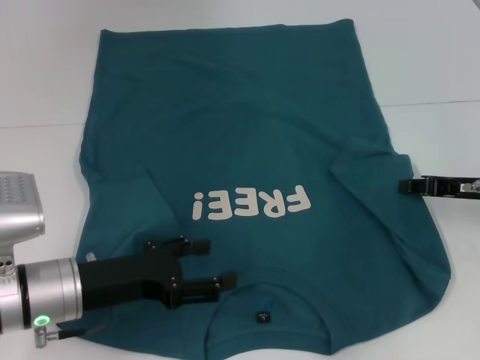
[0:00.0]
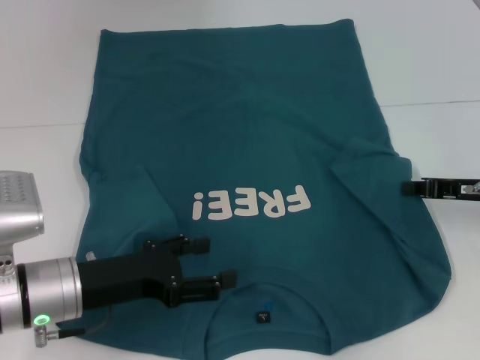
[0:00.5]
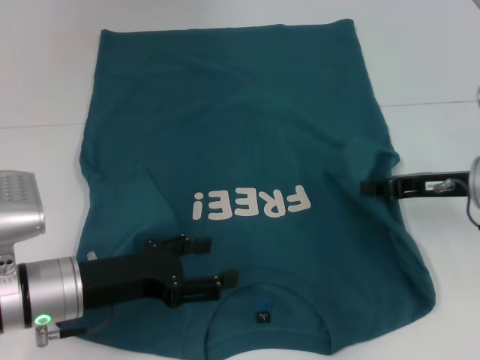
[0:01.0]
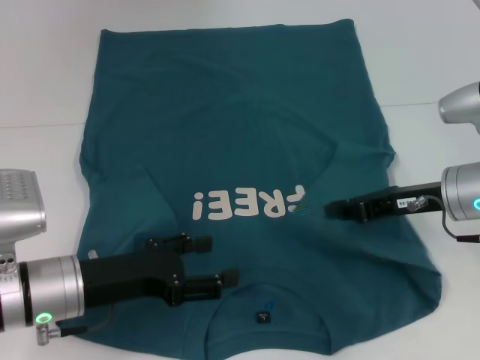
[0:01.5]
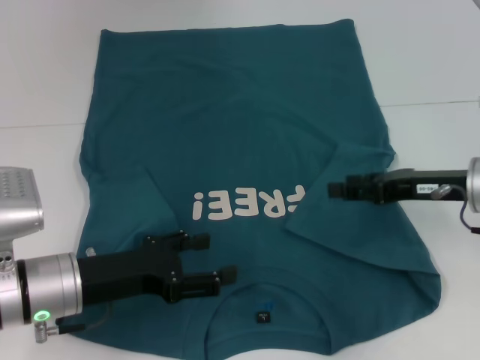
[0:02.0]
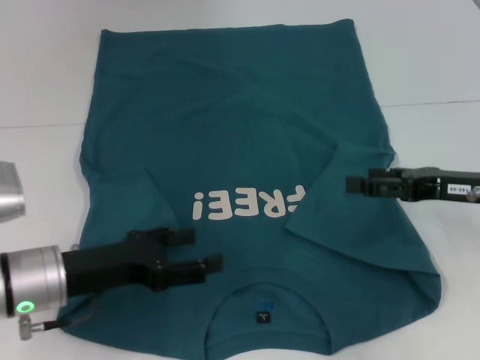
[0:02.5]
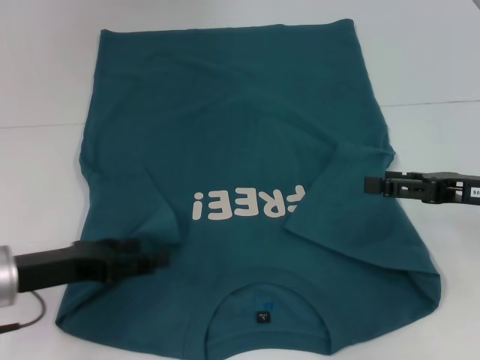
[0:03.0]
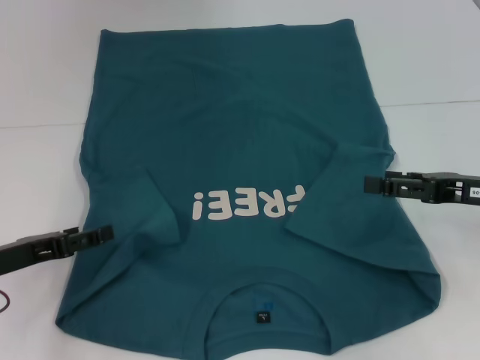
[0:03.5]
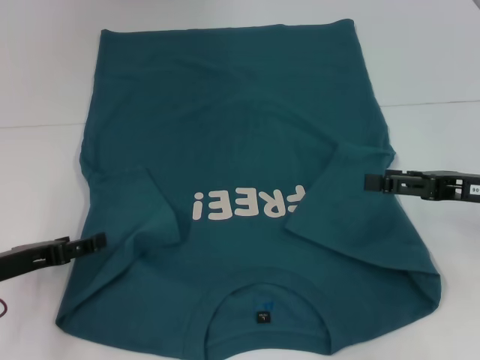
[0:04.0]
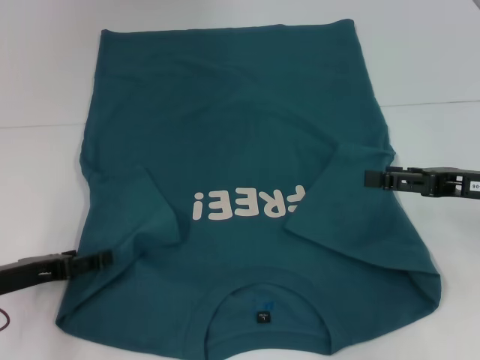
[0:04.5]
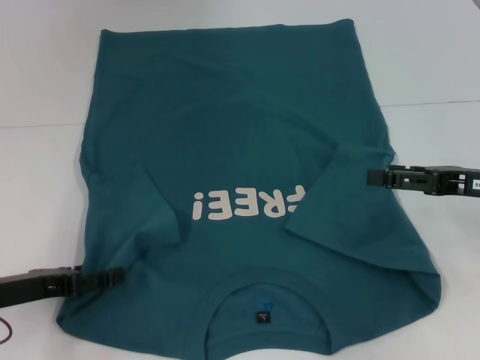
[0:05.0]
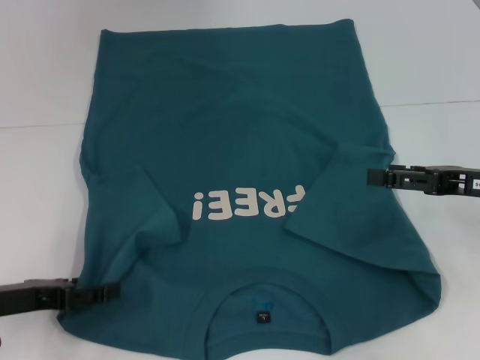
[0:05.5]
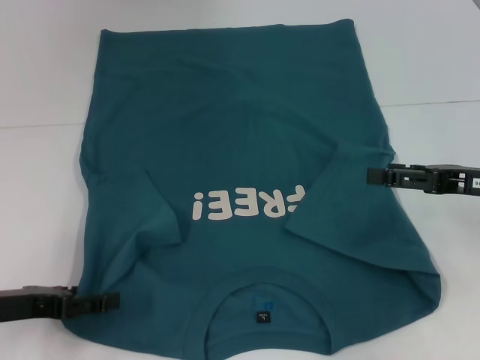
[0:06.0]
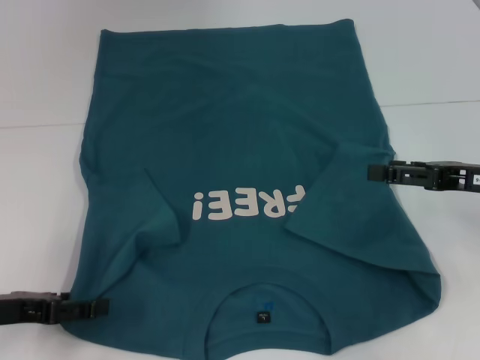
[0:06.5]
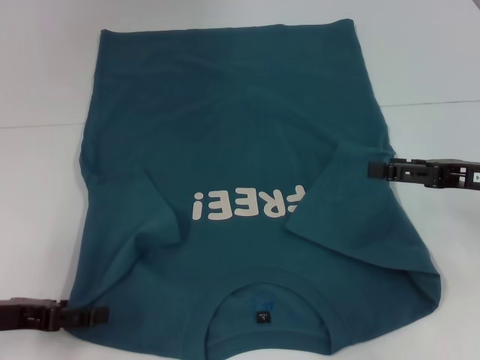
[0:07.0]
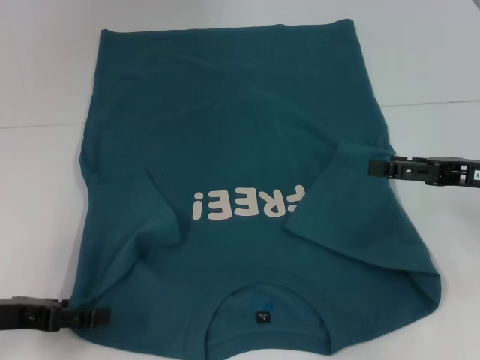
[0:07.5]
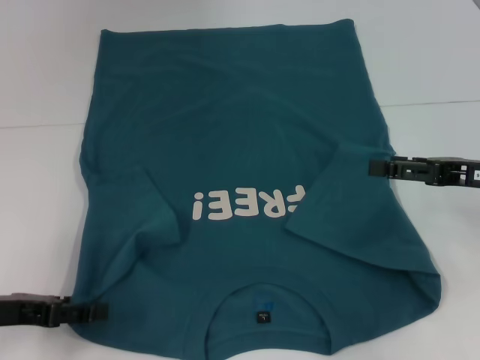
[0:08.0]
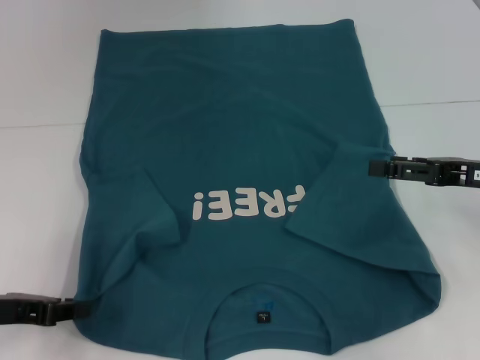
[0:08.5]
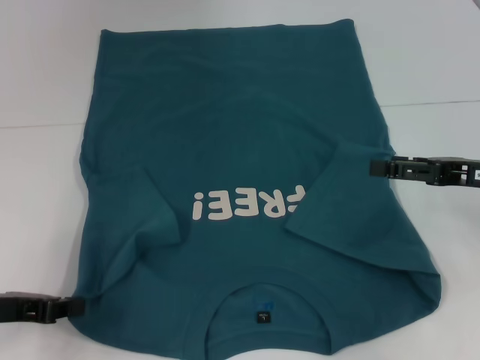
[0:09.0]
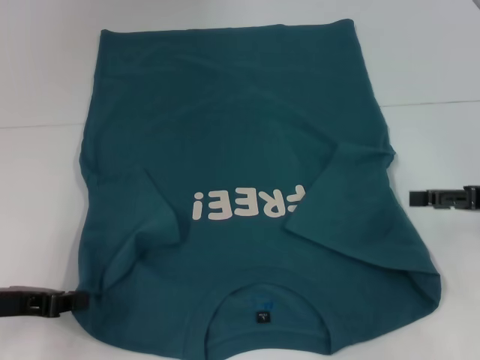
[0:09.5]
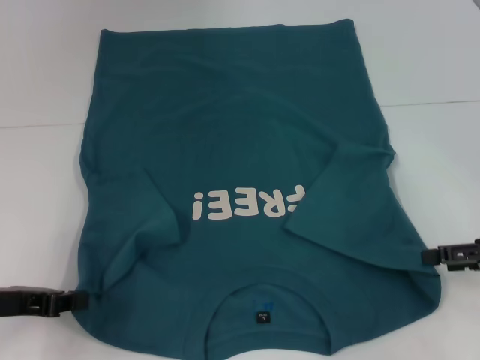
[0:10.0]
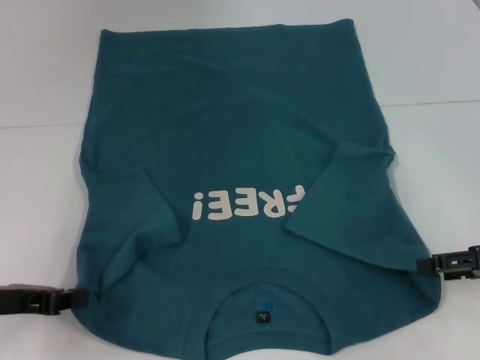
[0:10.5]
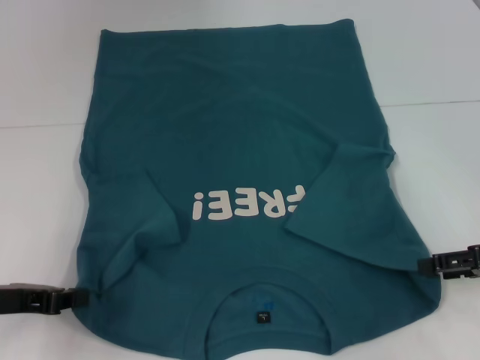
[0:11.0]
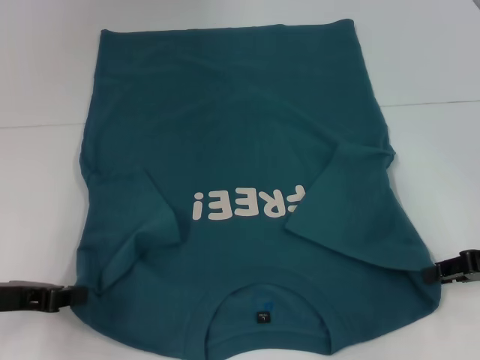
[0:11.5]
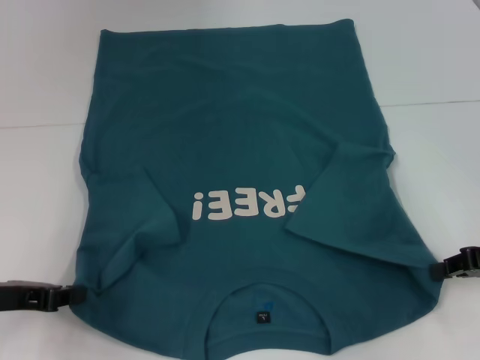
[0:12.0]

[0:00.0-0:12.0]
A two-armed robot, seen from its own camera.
Step, 0:02.0 to 0:09.0: Grab the bottom left corner with your left hand.
Step, 0:09.5 to 0:11.5: Grab the bottom right corner with your right hand.
0:00.0 to 0:02.0: The right gripper changes place by approximately 5 cm, and closes, then reopens.
0:02.0 to 0:04.0: The left gripper is displaced to the left by some 10 cm. Meanwhile the right gripper shifts by approximately 5 cm, and opens up.
0:04.0 to 0:06.0: The grippers make only small movements.
0:06.0 to 0:08.0: Both grippers stay put.
0:08.0 to 0:10.0: The left gripper closes; the right gripper moves approximately 5 cm.
0:10.0 to 0:12.0: The right gripper closes its fingers.

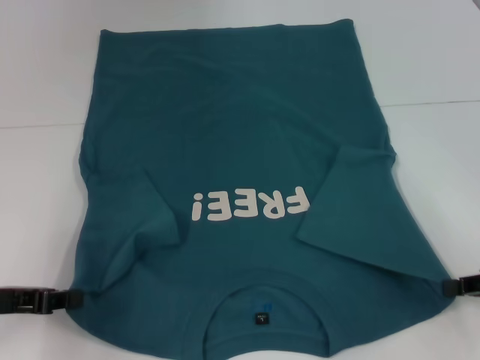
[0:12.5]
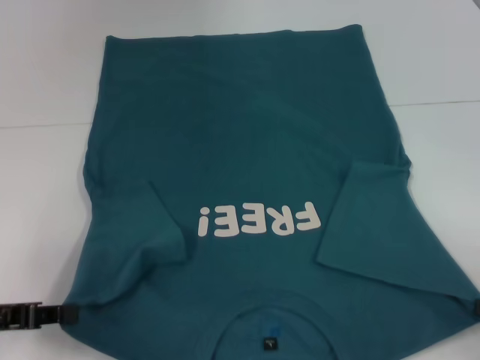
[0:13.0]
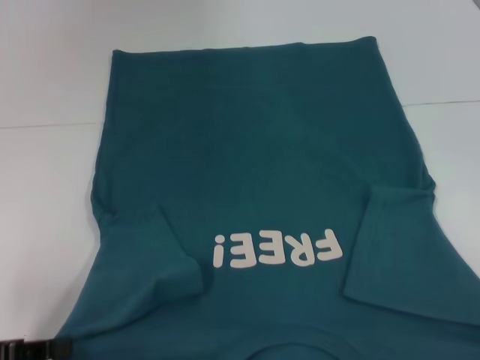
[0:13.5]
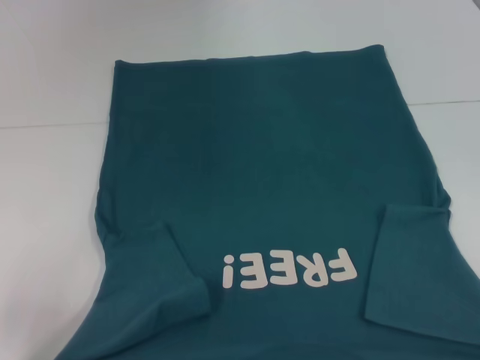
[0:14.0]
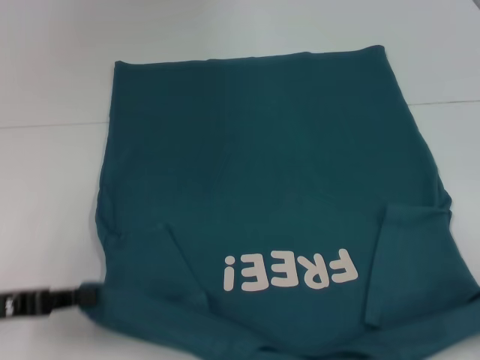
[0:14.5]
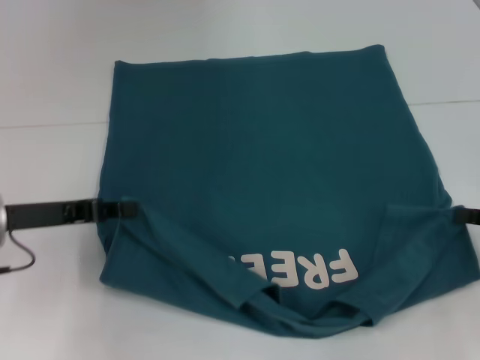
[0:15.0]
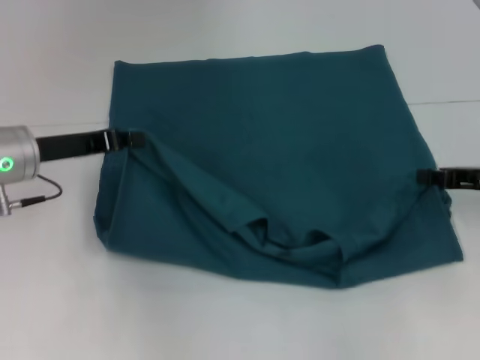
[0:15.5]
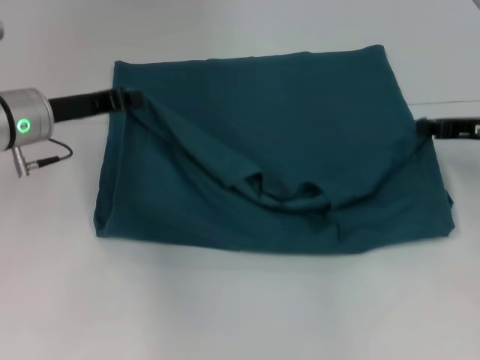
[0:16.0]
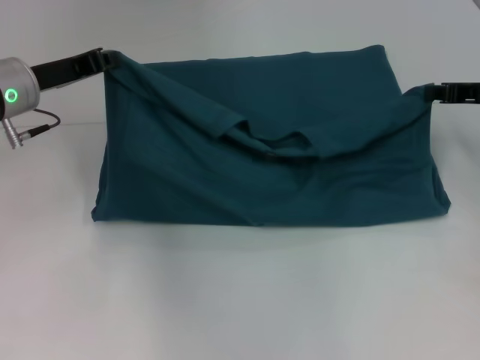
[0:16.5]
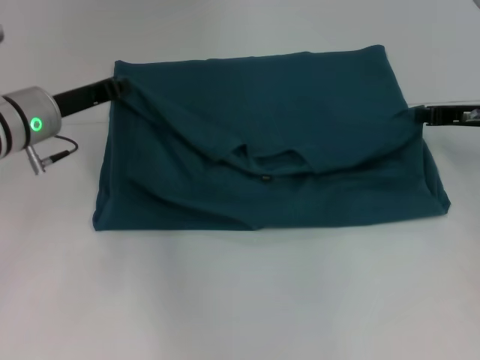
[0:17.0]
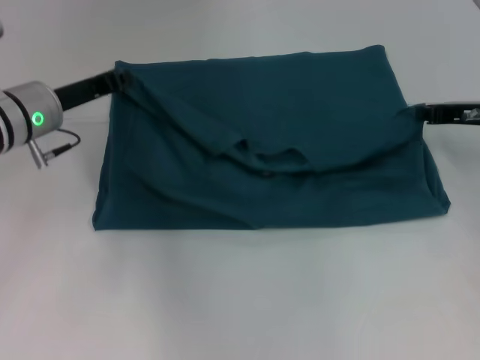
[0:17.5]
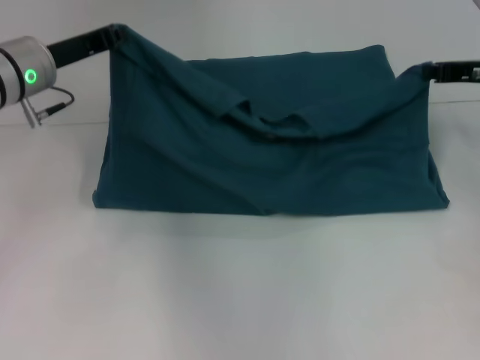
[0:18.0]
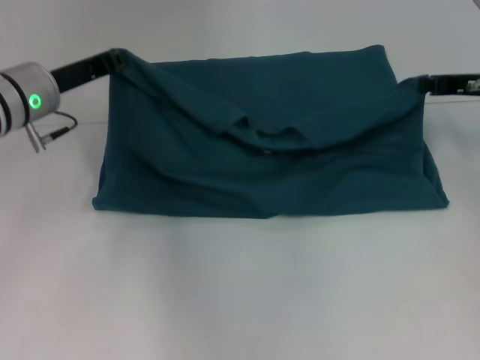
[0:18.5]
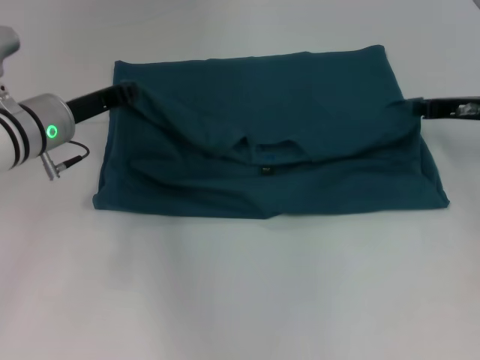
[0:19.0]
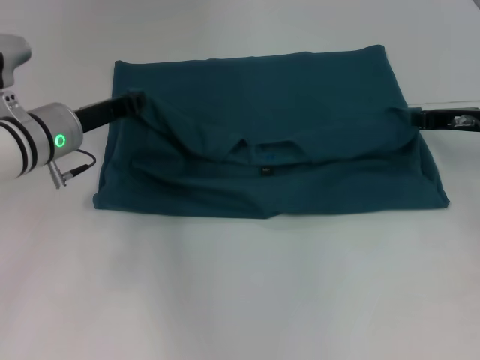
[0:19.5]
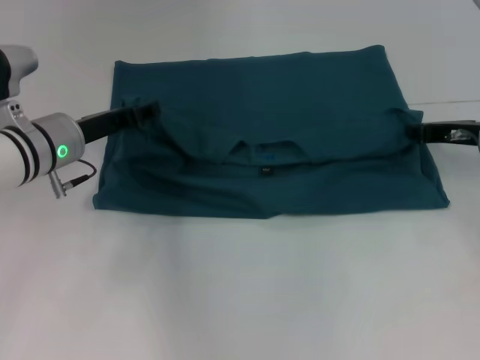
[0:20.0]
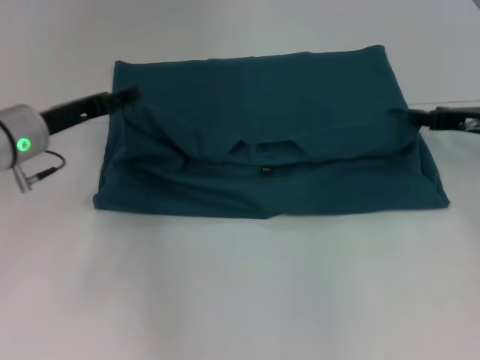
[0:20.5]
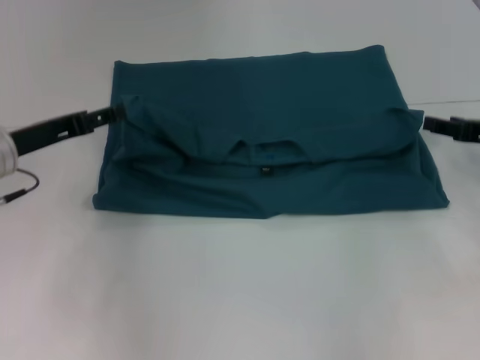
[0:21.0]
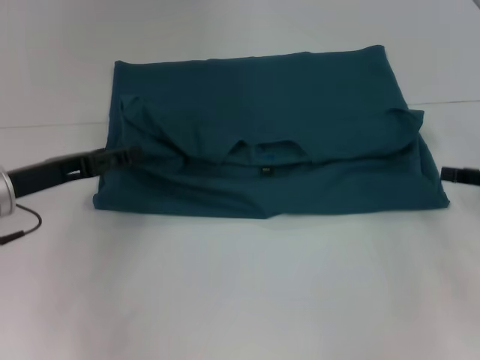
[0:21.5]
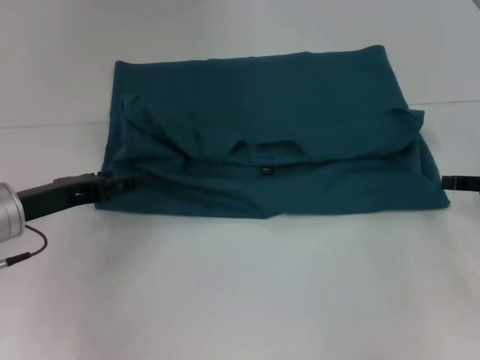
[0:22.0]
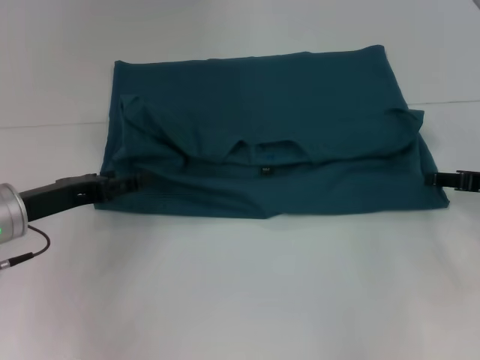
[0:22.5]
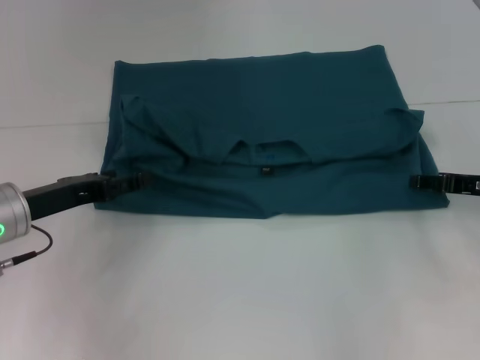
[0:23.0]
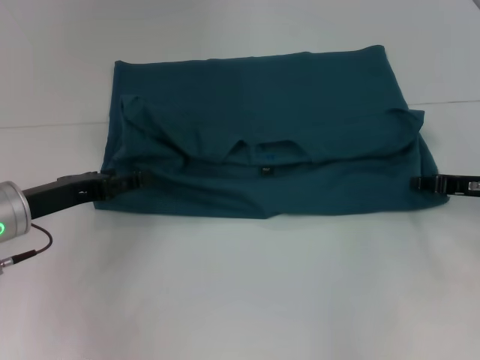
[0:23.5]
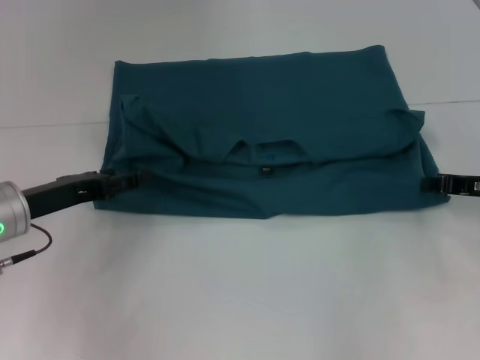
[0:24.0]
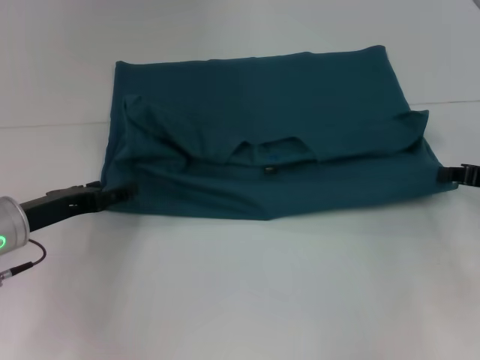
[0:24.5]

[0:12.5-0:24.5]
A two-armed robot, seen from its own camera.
Step, 0:12.5 to 0:20.0: Fold the clothes to the left.
Step, 0:12.5 to 0:20.0: Fold the clothes to the right.
0:12.5 to 0:14.5: The right gripper heads backward and to the right, covering approximately 10 cm.
0:14.5 to 0:16.5: The left gripper goes about 20 cm forward and to the right, while the right gripper is displaced forward by some 25 cm.
0:16.5 to 0:18.5: There are only small adjustments of the grippers.
0:18.5 to 0:20.5: The right gripper opens up. Meanwhile the left gripper opens its fingers.
0:20.5 to 0:22.5: The two grippers go about 5 cm backward.
0:22.5 to 0:24.5: The right gripper closes its fingers.

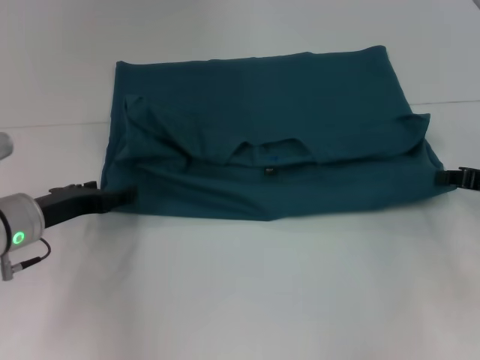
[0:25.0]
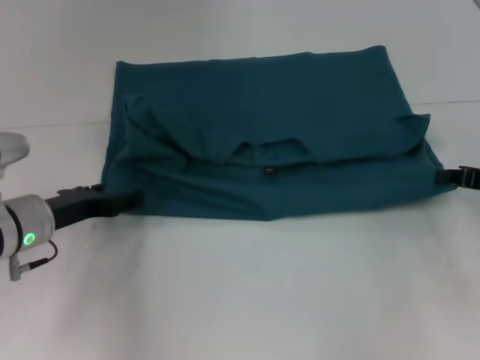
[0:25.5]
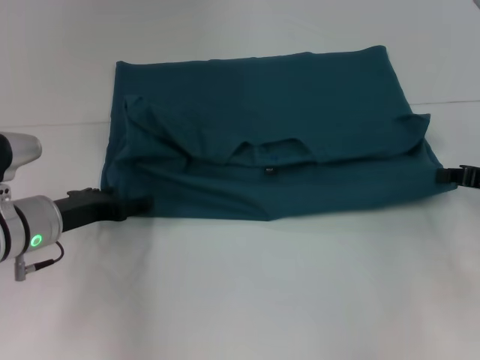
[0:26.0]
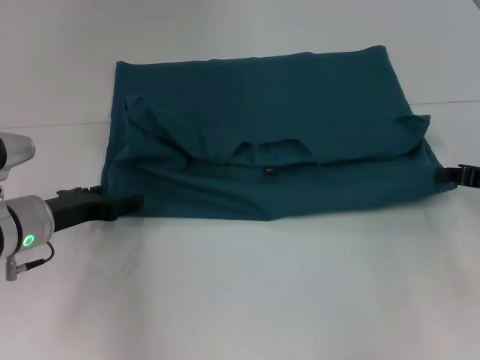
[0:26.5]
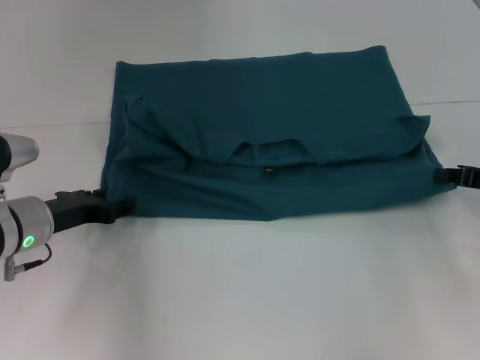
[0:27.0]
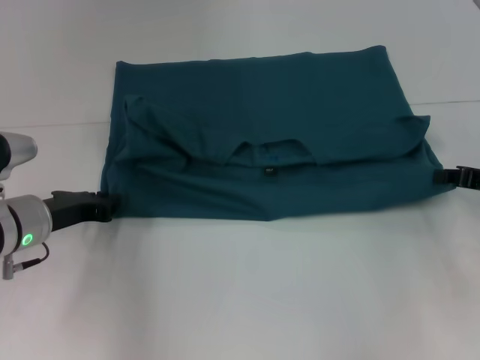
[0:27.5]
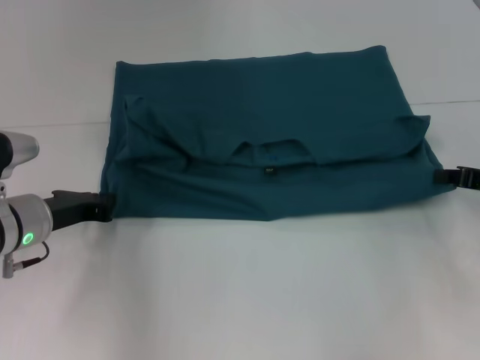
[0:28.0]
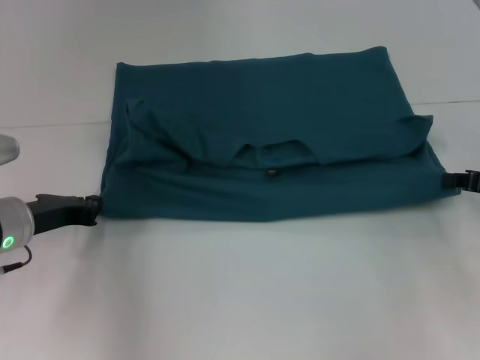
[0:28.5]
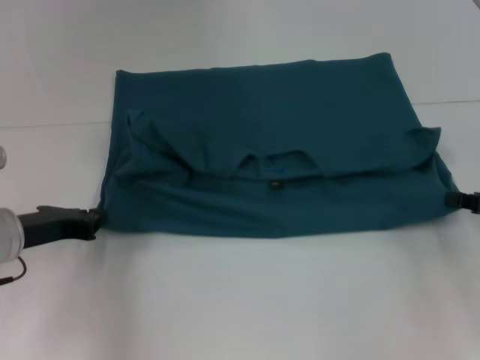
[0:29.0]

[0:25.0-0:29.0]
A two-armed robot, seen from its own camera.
0:25.0 to 0:27.0: The grippers stay close to where they were, moving slightly.
0:27.0 to 0:29.0: The left gripper closes up.
